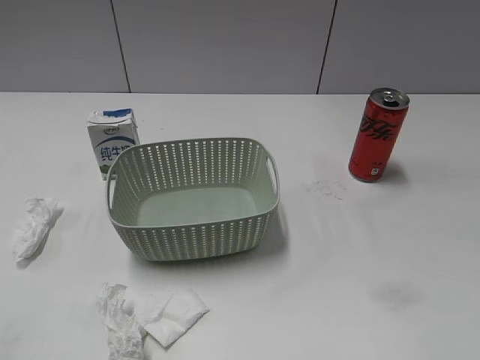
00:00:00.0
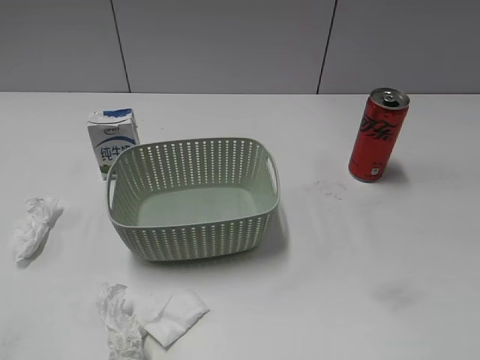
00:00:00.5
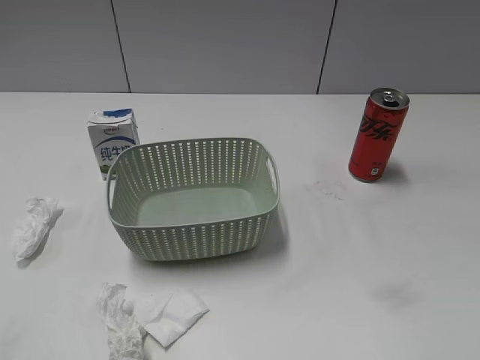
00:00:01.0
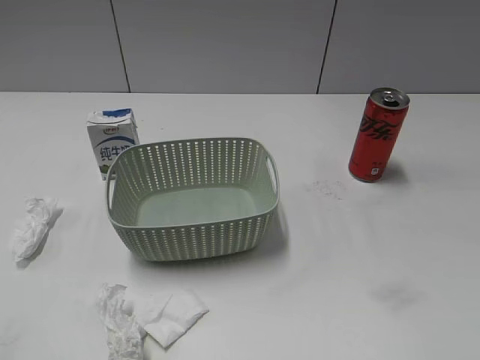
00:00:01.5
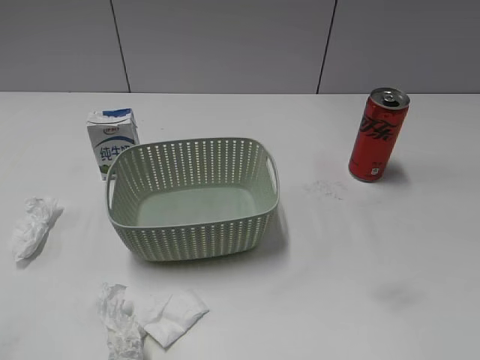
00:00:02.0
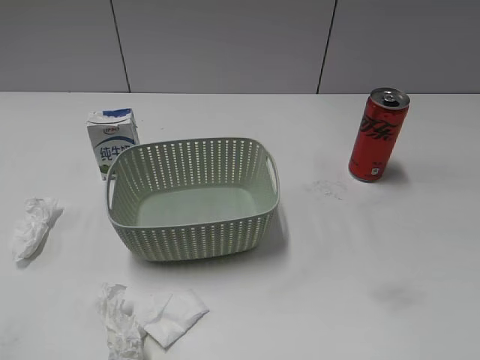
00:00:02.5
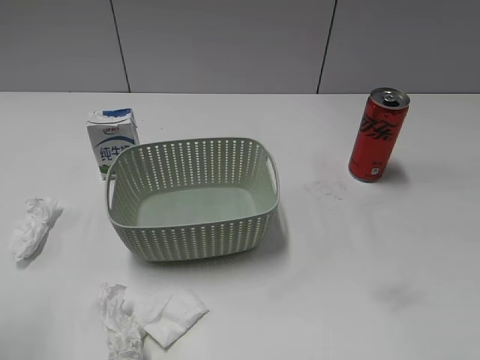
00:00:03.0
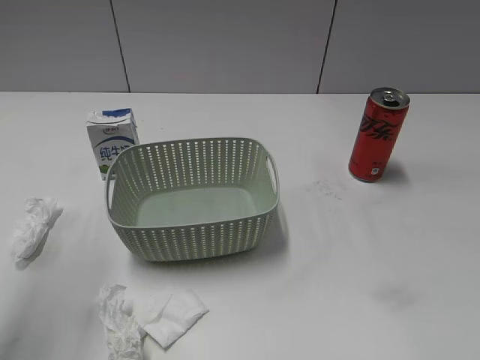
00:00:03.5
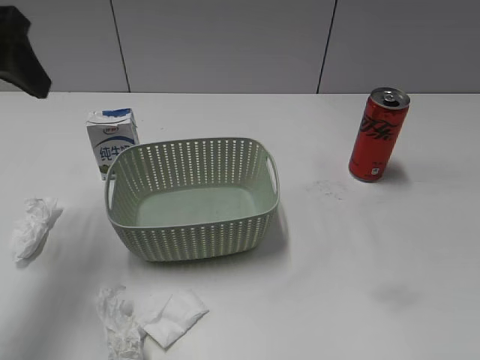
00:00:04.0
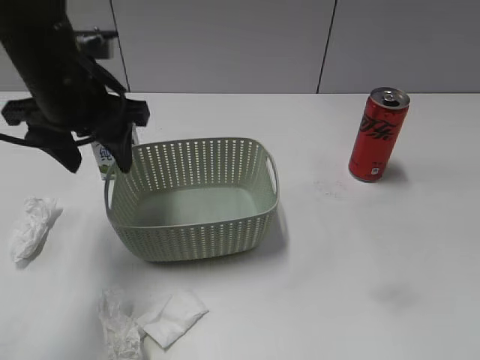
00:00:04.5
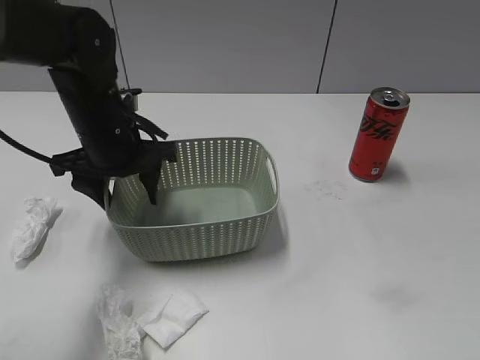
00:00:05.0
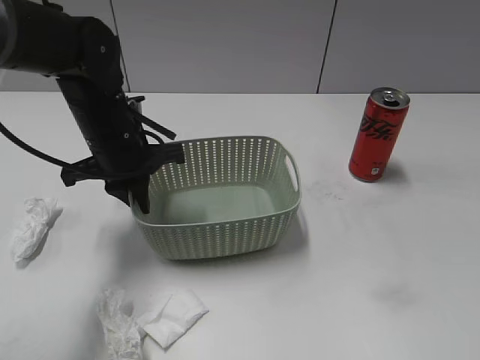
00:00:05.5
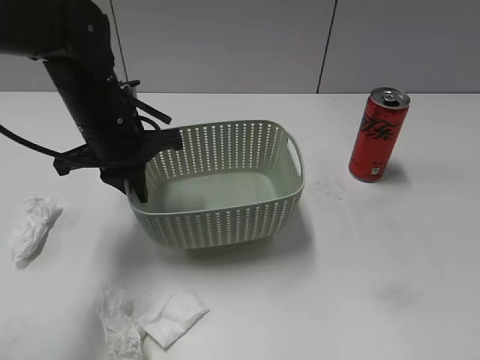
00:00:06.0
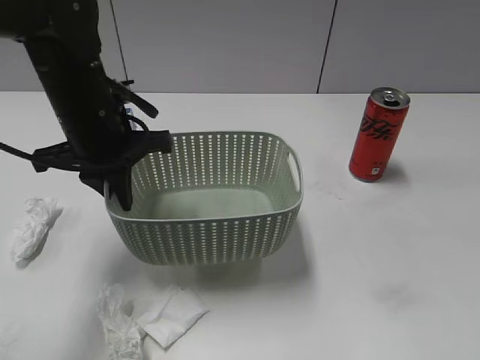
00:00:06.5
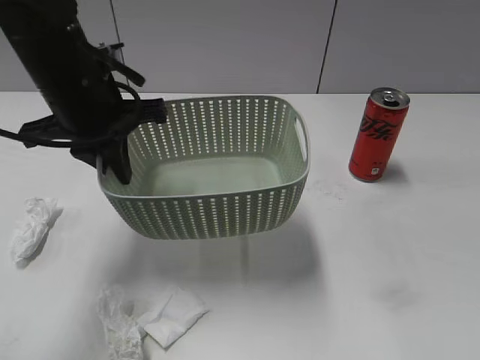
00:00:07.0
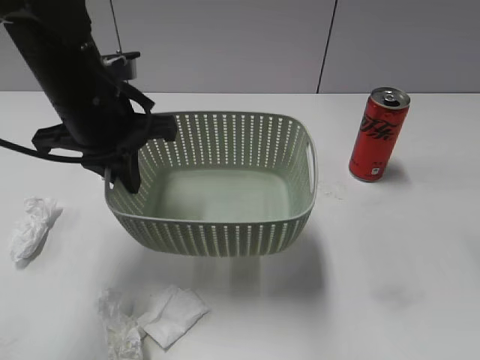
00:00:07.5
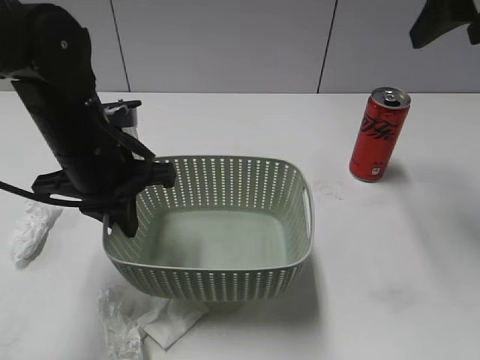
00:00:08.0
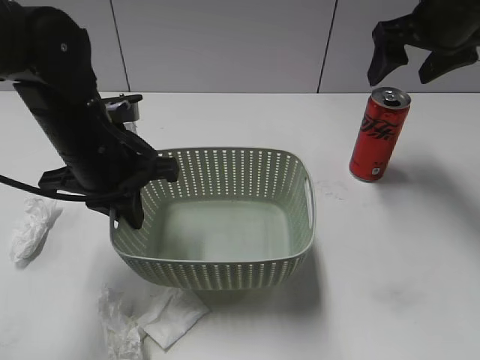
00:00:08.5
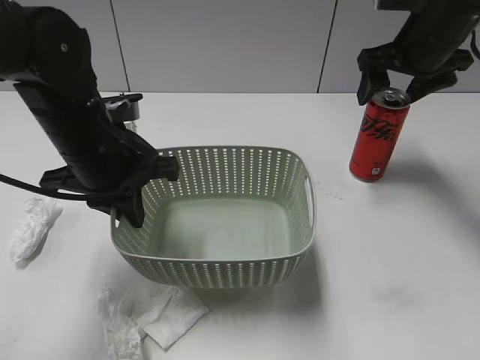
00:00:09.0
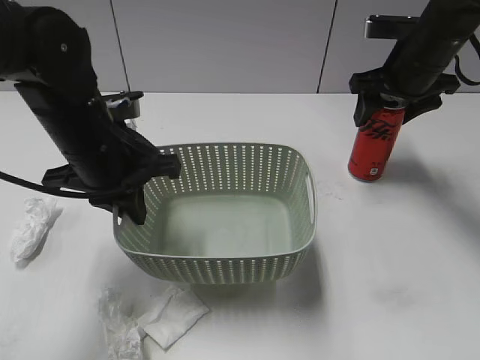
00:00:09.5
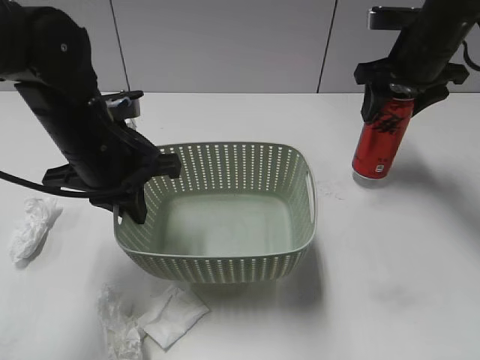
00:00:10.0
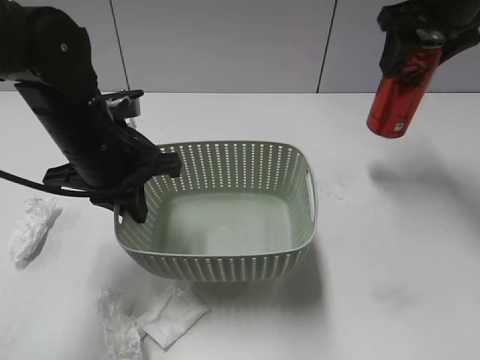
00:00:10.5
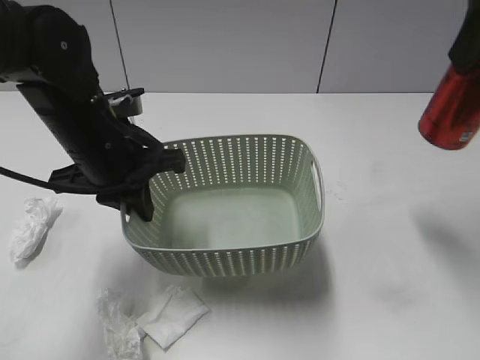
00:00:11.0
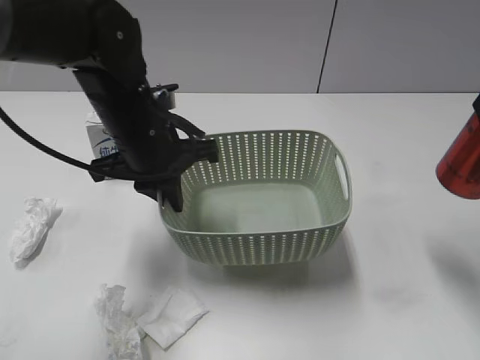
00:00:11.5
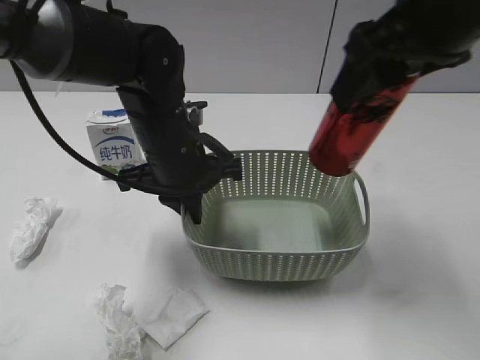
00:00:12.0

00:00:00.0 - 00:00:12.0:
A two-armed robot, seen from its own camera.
Step, 00:00:04.0 - 00:00:05.5: Grasp the basket with left gripper.
Step, 00:00:06.0 - 00:00:07.5: Lift the basket with left gripper.
Step, 00:00:08.0 - 00:00:09.5: Grasp the cola can with right gripper.
00:00:02.0 - 00:00:04.0: The left gripper travels forward by approximately 30 cm.
00:00:04.0 - 00:00:06.0: The left gripper goes roughly 20 cm downward, to the right and forward, and closes.
00:00:06.0 - 00:00:08.0: The left gripper heads backward, covering roughly 5 cm, while the right gripper is displaced forward by some 30 cm, and opens its fingers.
00:00:08.0 - 00:00:10.0: The right gripper is displaced downward and forward by some 20 cm, and closes.
00:00:10.0 - 00:00:12.0: The left gripper moves to the right, some 5 cm. The right gripper shifts about 20 cm backward, upward and to the left.

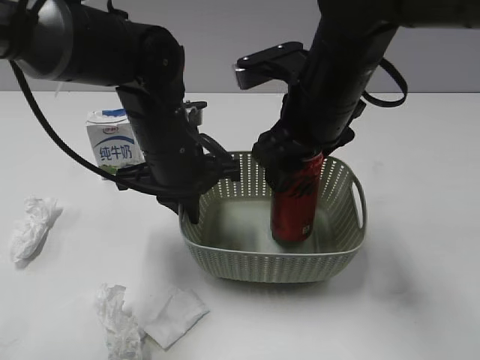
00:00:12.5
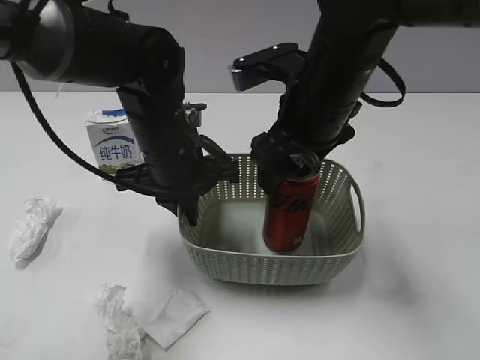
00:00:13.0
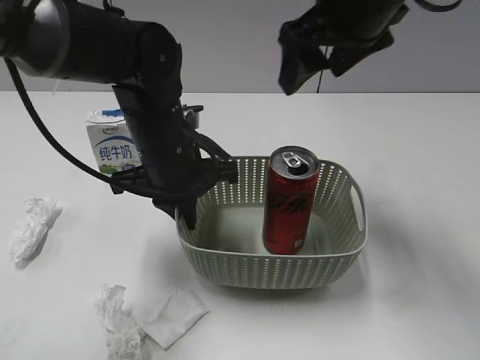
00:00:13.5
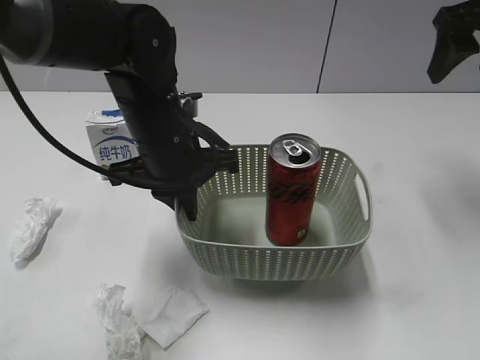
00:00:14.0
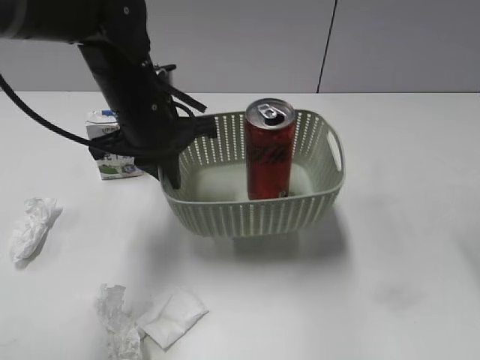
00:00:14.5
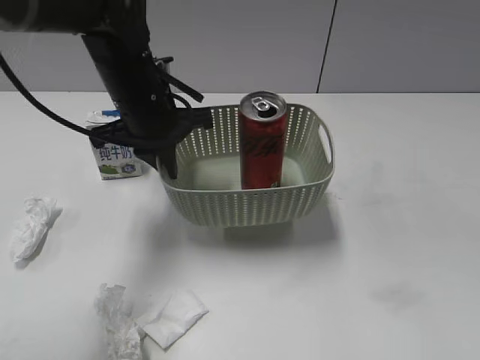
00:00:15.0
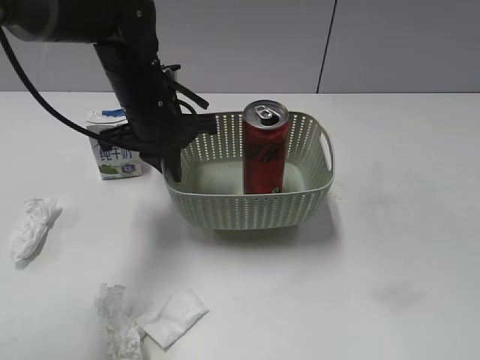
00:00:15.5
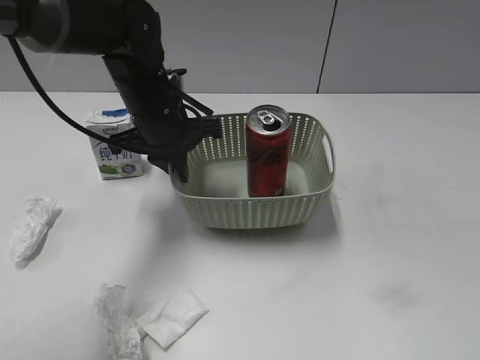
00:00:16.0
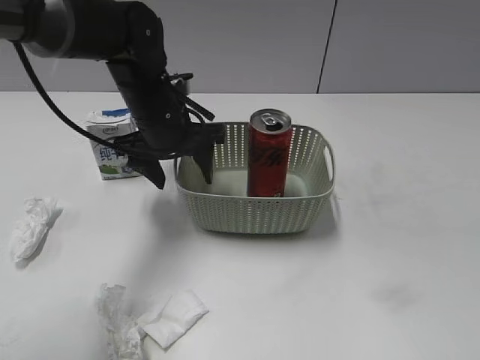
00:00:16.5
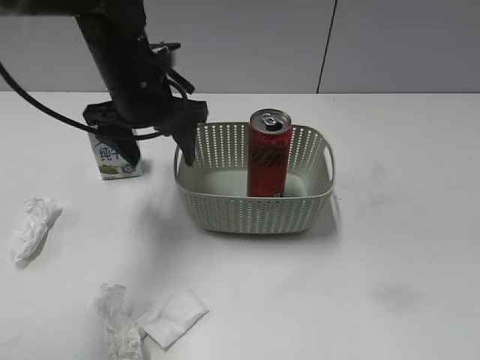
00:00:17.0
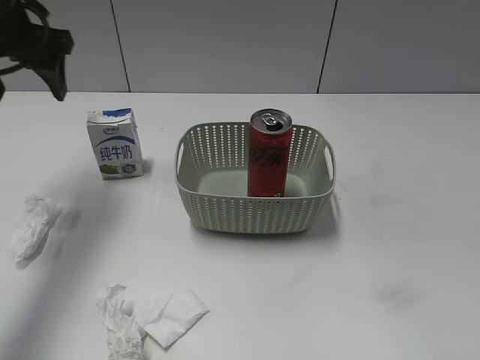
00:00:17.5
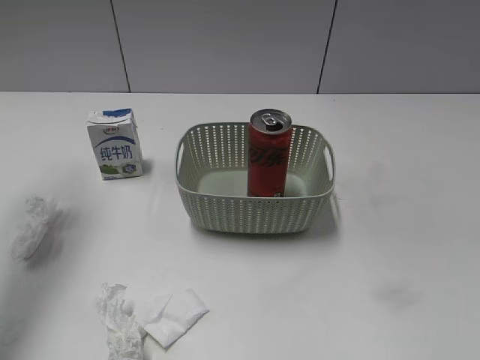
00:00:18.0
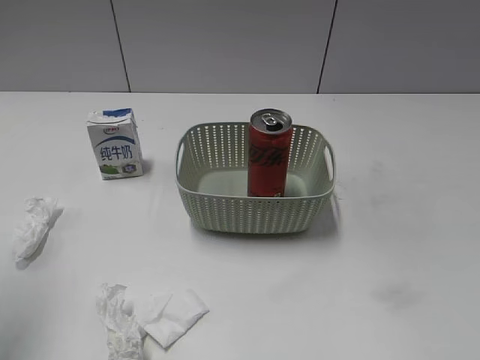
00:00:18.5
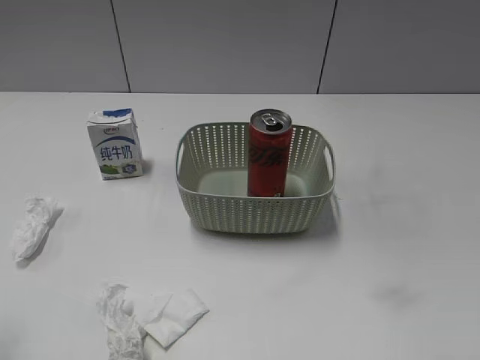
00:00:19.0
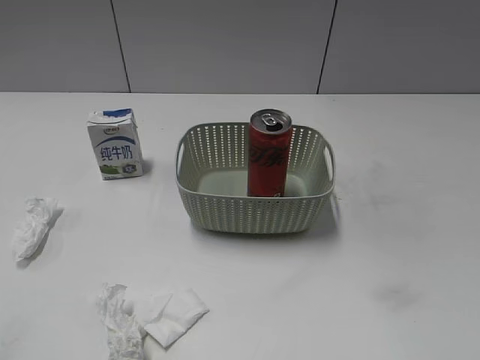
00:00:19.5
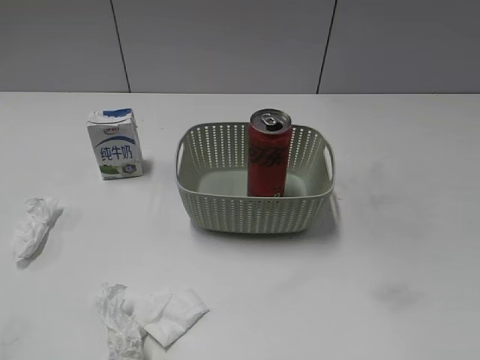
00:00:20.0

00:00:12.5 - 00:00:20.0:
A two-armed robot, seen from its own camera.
Step, 00:00:13.5 - 00:00:16.0: Place the basket on the table with left gripper.
00:00:12.5 - 00:00:14.5: The right gripper moves to the right and upward, approximately 25 cm, and opens.
00:00:14.5 - 00:00:16.5: The left gripper changes place by approximately 5 cm, and opens. The right gripper moves backward, roughly 30 cm.
00:00:16.5 - 00:00:18.0: The left gripper goes some 30 cm to the left and upward.
00:00:18.0 - 00:00:20.0: The left gripper shifts roughly 35 cm backward.

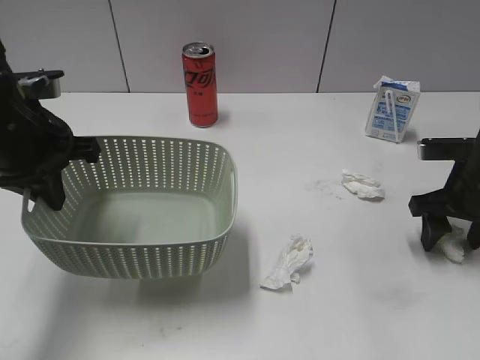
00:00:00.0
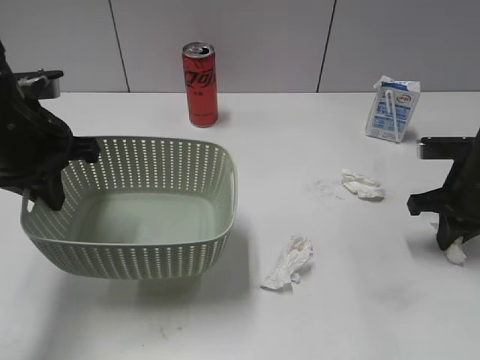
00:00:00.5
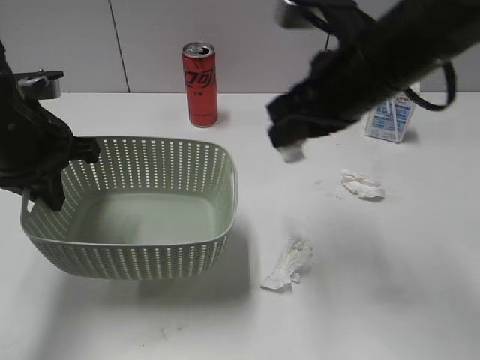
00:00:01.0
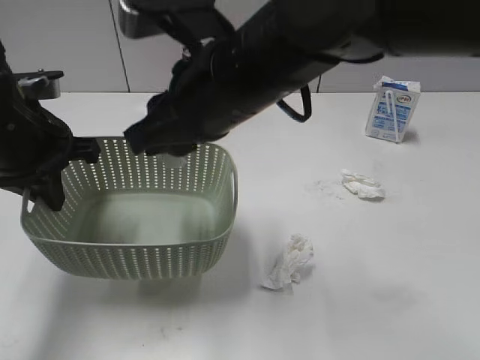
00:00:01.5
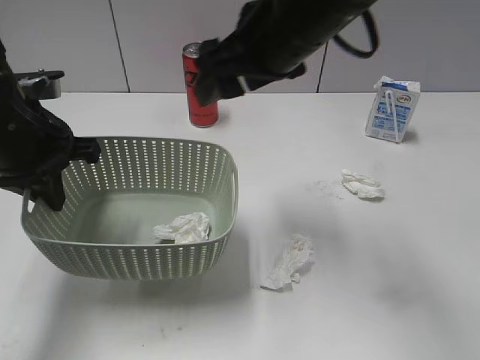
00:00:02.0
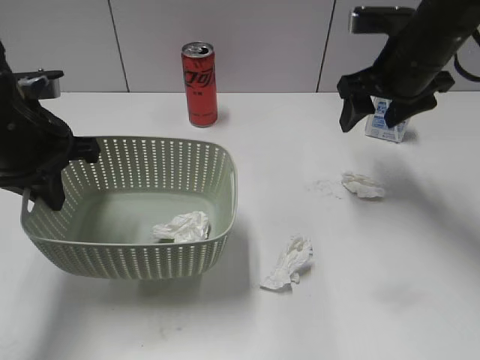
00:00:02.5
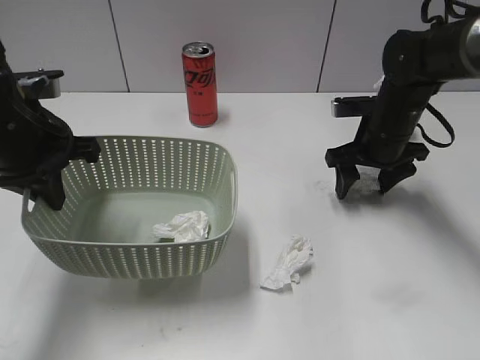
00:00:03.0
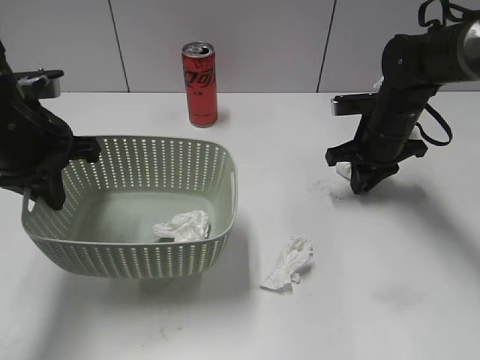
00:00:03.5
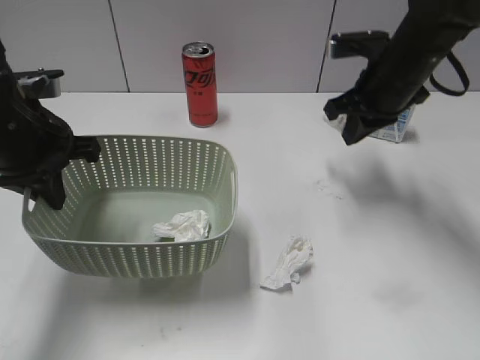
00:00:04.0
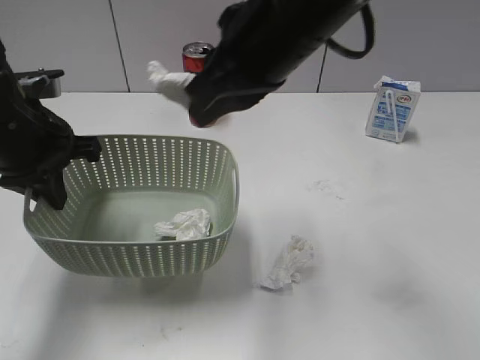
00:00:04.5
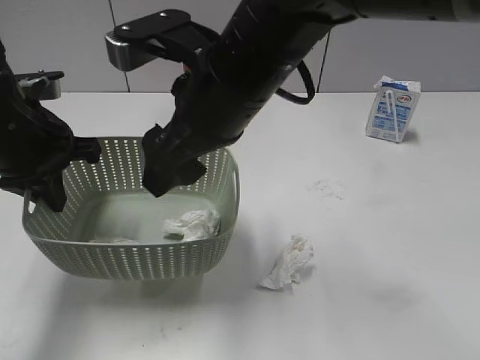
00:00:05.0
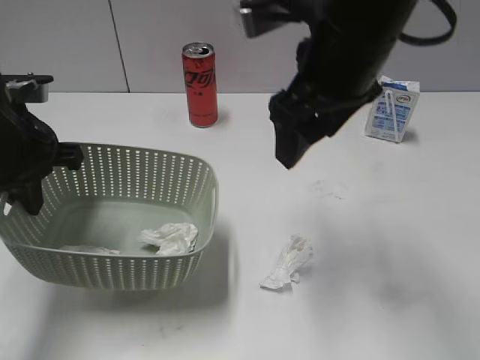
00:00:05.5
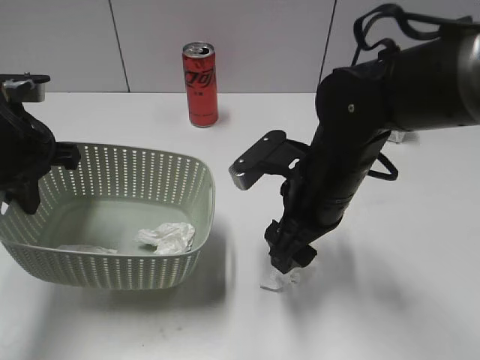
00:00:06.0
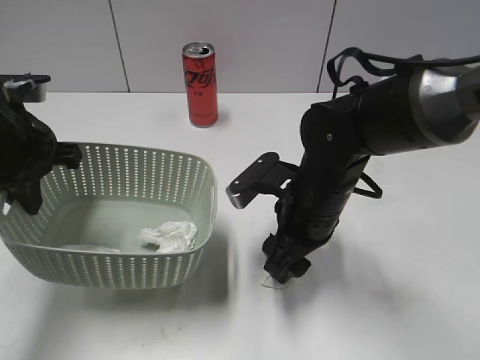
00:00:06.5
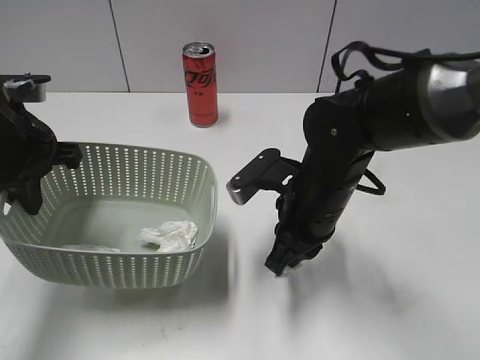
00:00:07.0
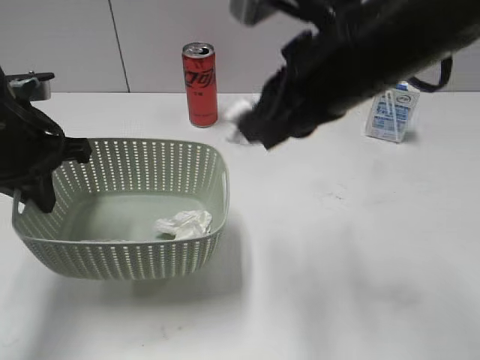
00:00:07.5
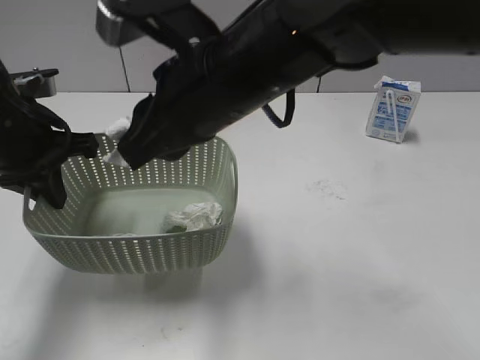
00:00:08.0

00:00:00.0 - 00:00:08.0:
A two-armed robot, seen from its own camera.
Step, 00:00:00.5 - 00:00:01.5: Place the waste paper in the basket with right gripper.
Step, 00:00:02.0 - 00:00:03.5: Grasp the waste paper with right gripper.
Step, 00:00:04.0 - 00:00:05.0: Place the waste paper in the basket with right gripper.
Step, 00:00:05.5 - 00:00:06.5: Grasp the waste paper with right gripper.
00:00:00.0 - 00:00:02.0: The right gripper is displaced to the left and upward by about 30 cm, and closes and opens again.
00:00:02.0 - 00:00:04.0: The right gripper heads to the right, downward and forward, covering approximately 20 cm, and closes up.
00:00:04.0 - 00:00:06.0: The right gripper is displaced backward and to the left by some 15 cm, and opens up.
00:00:06.0 - 00:00:08.0: The right gripper travels upward and to the left by roughly 15 cm, and closes.
